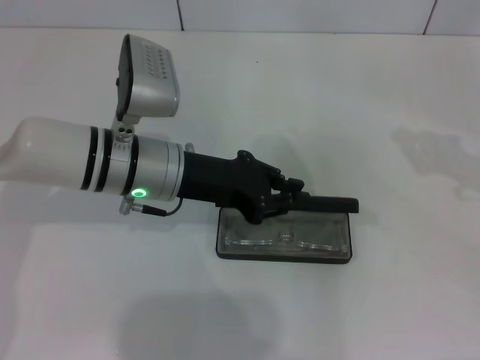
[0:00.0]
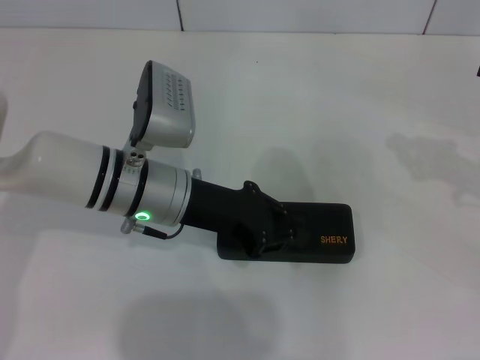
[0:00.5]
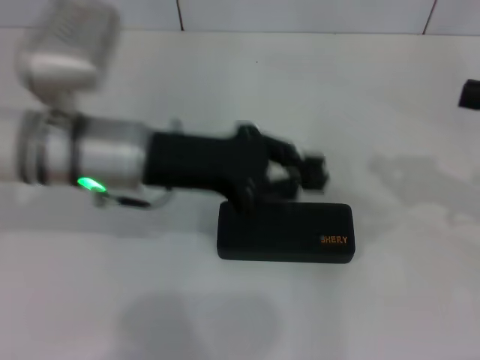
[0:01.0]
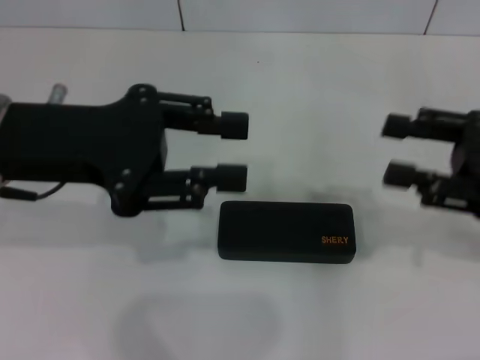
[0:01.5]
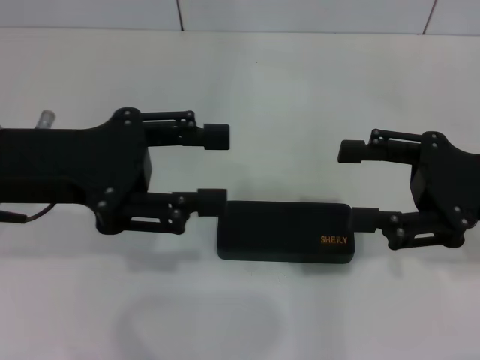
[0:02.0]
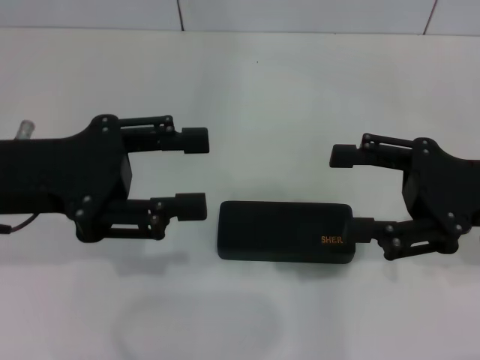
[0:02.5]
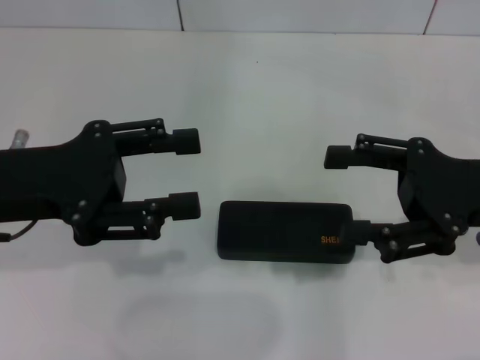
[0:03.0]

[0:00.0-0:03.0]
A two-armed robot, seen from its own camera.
0:00.0 to 0:01.5: The left gripper heads upward, to the left and backward, covering about 15 cm, and opens, while the right gripper goes some 5 cm to the left.
0:01.5 to 0:03.0: The right gripper opens its fingers. The left gripper changes place by roughly 5 cm, and opens its fingers.
